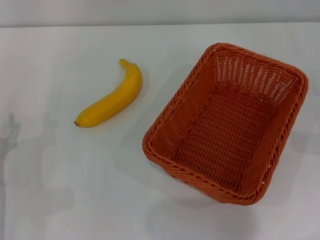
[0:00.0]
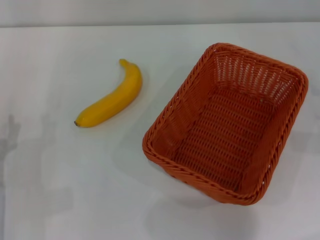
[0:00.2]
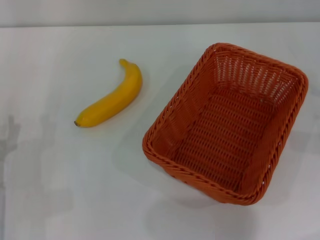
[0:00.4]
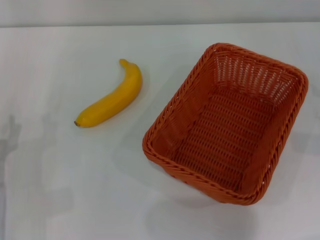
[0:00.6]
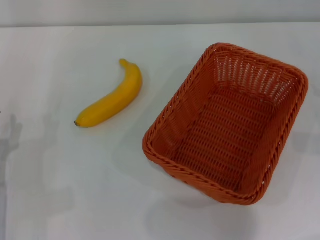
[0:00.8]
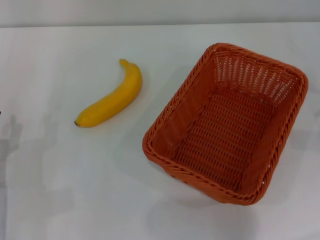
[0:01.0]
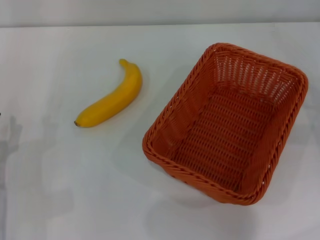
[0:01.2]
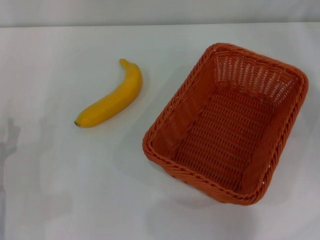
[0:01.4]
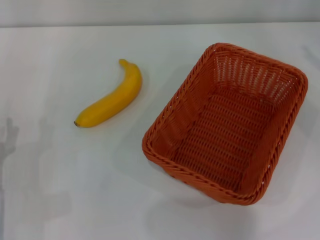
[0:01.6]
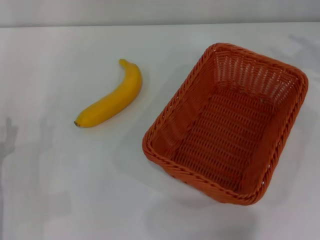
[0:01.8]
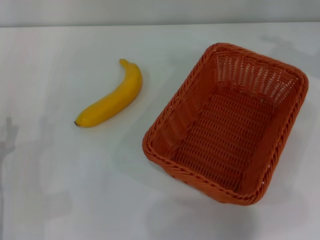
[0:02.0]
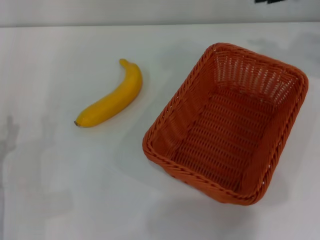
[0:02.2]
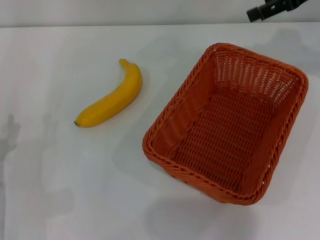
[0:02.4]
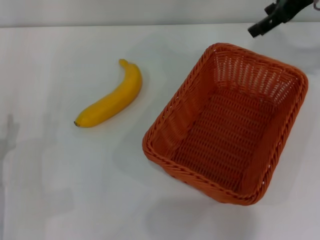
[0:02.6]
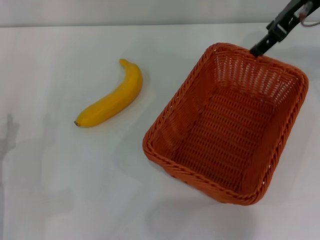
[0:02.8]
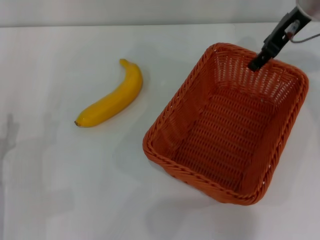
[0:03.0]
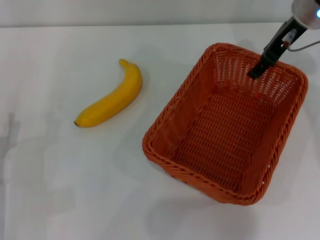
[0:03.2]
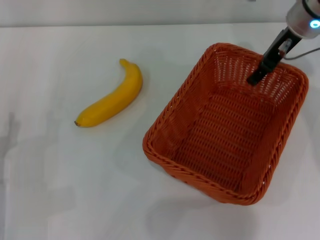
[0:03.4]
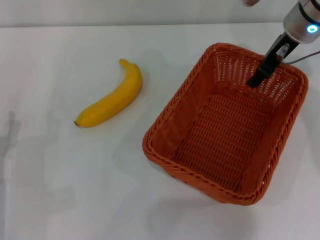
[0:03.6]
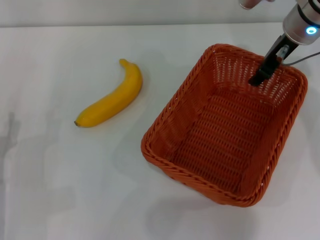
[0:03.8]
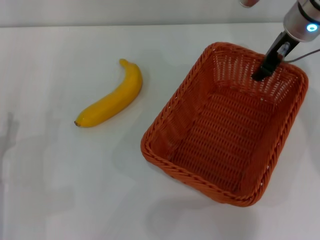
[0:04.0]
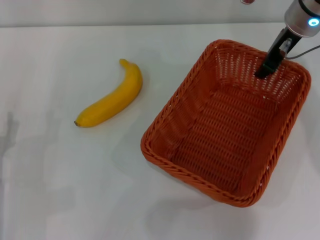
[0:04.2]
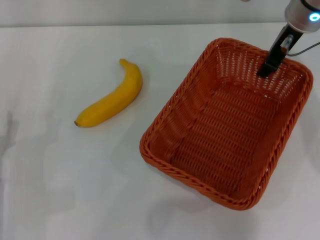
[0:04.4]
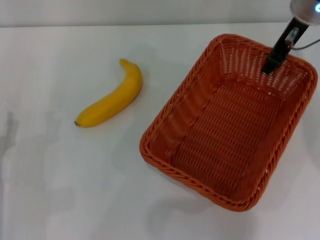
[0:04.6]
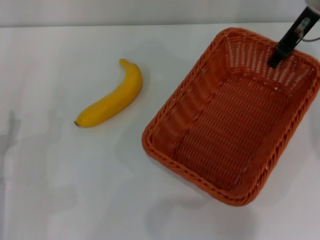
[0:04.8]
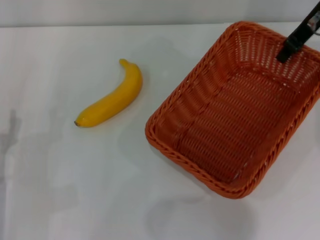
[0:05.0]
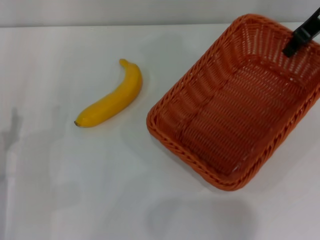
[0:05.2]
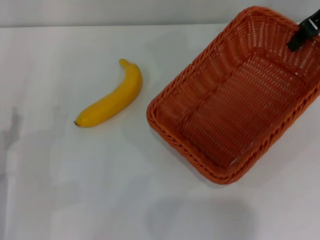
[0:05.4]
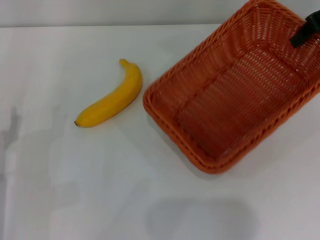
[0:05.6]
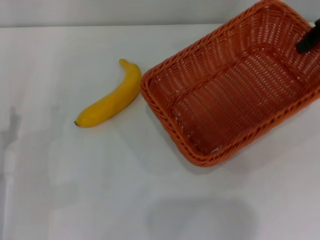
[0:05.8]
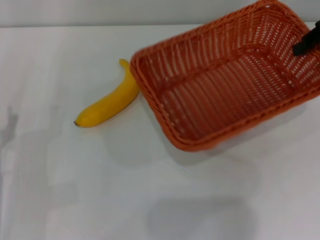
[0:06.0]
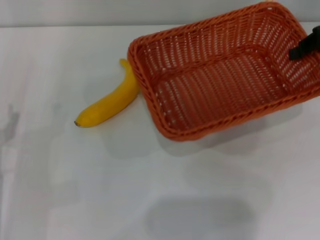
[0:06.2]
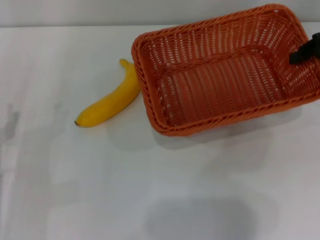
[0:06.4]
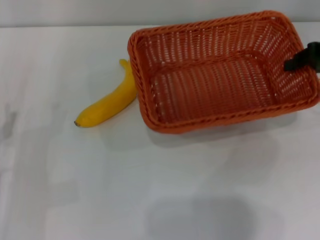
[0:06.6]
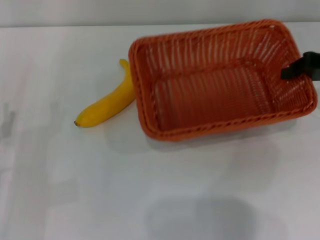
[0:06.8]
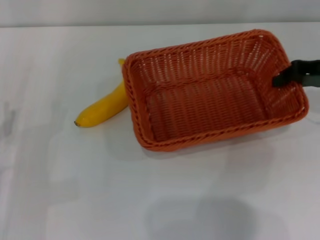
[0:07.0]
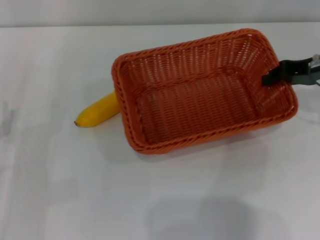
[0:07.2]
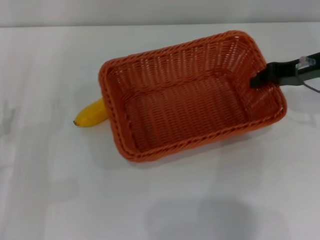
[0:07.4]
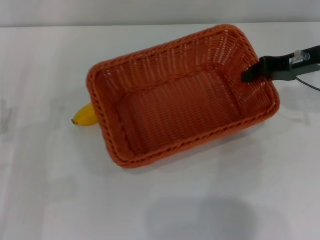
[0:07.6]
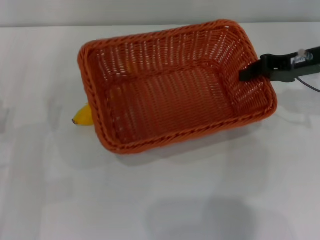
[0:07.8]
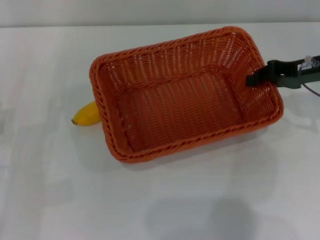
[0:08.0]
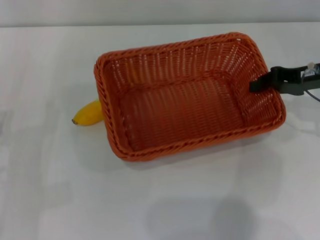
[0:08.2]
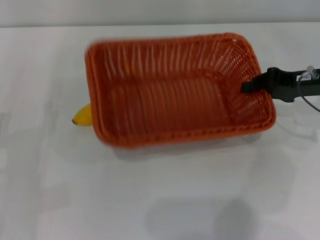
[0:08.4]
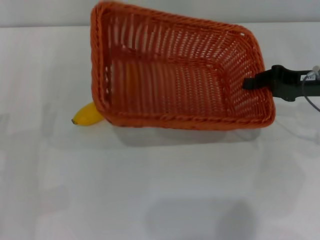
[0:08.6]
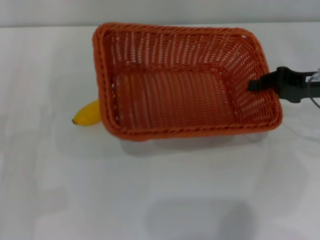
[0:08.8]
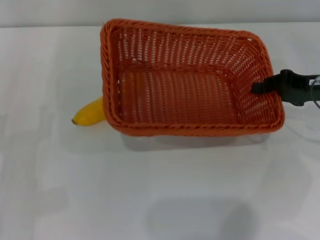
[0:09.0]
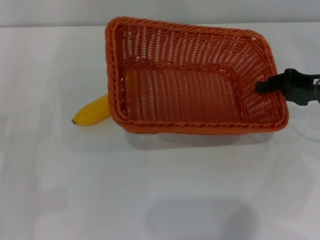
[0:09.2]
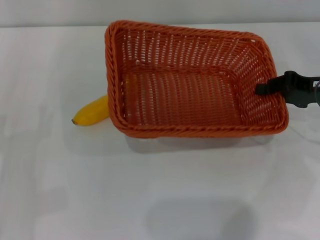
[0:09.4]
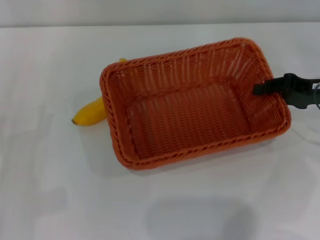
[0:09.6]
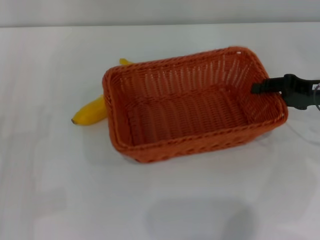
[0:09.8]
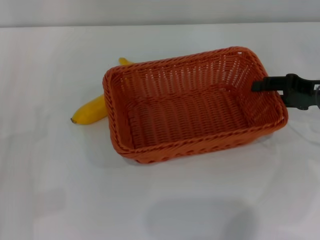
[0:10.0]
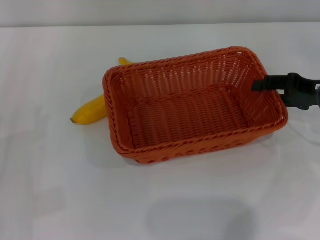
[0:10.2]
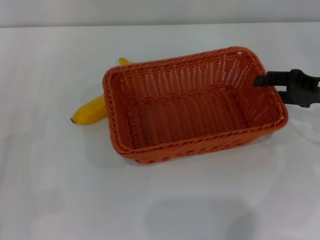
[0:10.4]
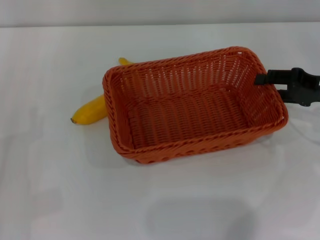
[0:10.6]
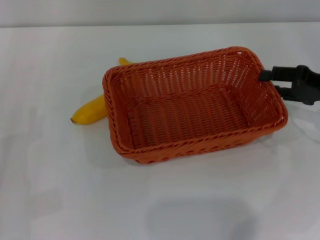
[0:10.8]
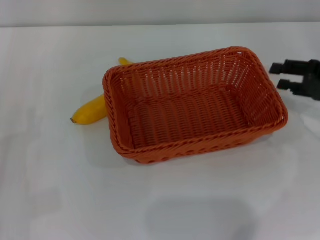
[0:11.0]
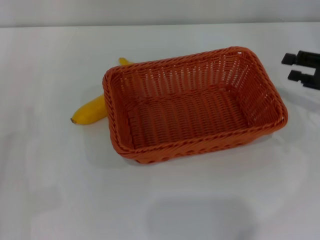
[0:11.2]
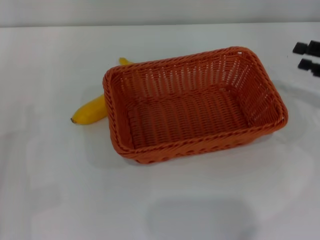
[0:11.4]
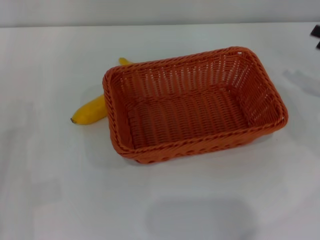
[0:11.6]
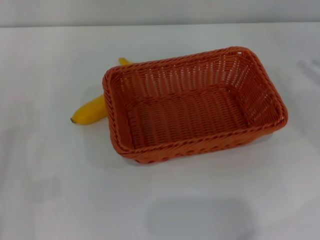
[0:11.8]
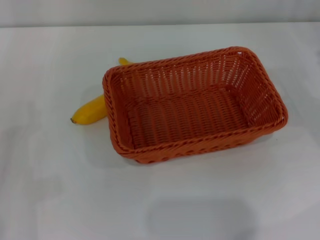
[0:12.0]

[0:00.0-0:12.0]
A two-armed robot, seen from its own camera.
Step, 0:00.0 to 0:04.6: Pick up the light basket with the right gripper.
Step, 0:04.8 to 0:11.0: Place the light basket in the center of view with the right gripper.
0:01.6 to 0:03.0: The right gripper moves to the left, forward and upward, some 25 cm.
0:03.0 to 0:04.4: The right gripper closes.
0:04.4 to 0:06.0: The right gripper moves to the right, some 15 cm.
0:06.0 to 0:07.6: The right gripper goes some 10 cm downward and to the left.
0:07.6 to 0:09.0: The right gripper ends up some 5 cm from where it was.
0:09.0 to 0:10.4: The right gripper opens its fingers.
0:10.4 to 0:12.0: The right gripper goes approximately 10 cm to the right.

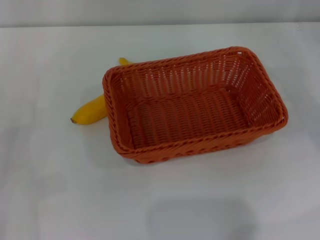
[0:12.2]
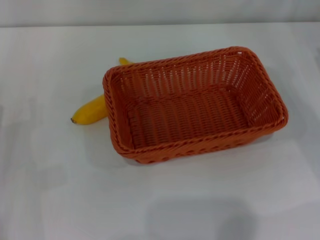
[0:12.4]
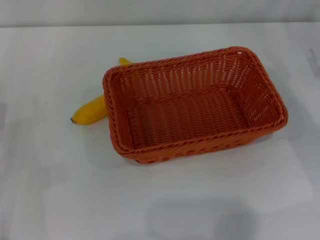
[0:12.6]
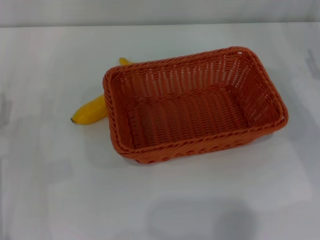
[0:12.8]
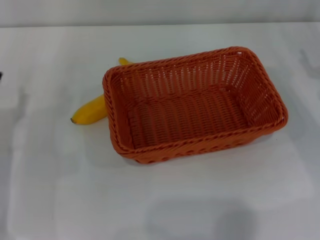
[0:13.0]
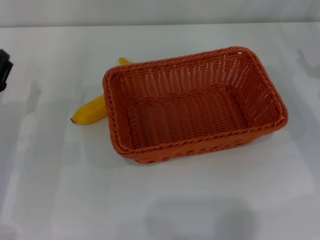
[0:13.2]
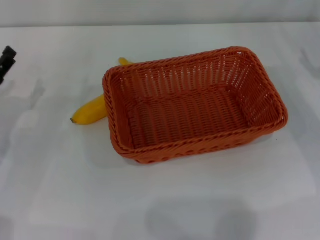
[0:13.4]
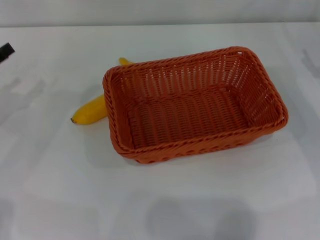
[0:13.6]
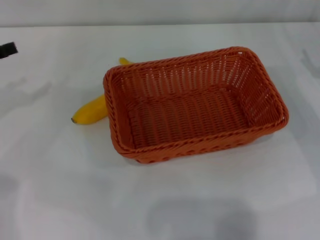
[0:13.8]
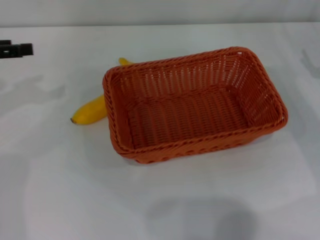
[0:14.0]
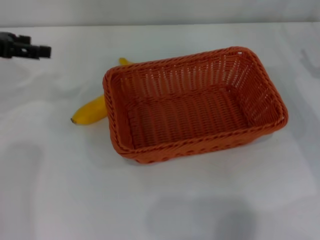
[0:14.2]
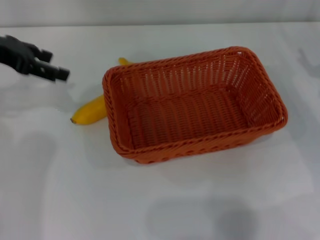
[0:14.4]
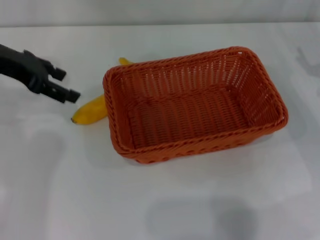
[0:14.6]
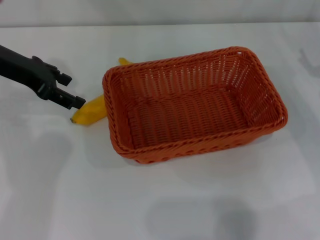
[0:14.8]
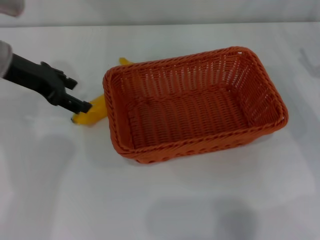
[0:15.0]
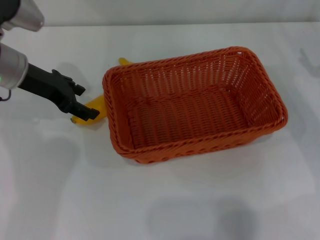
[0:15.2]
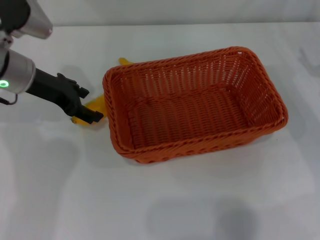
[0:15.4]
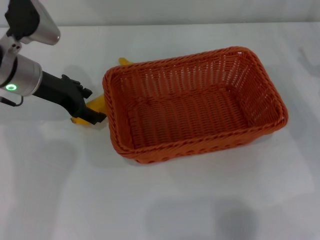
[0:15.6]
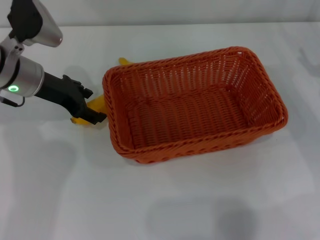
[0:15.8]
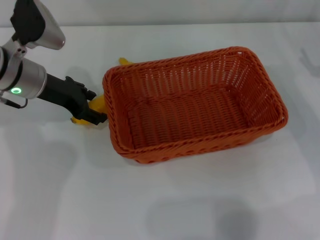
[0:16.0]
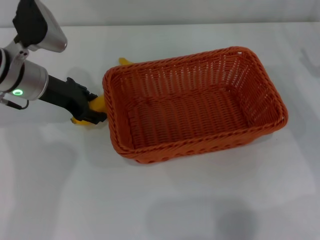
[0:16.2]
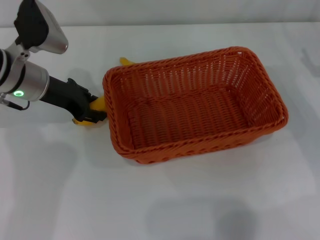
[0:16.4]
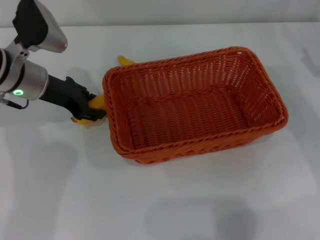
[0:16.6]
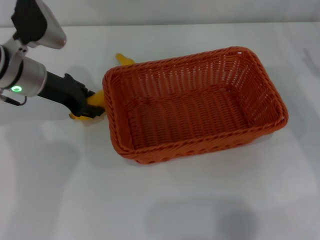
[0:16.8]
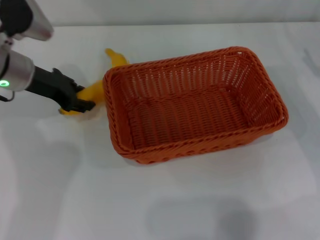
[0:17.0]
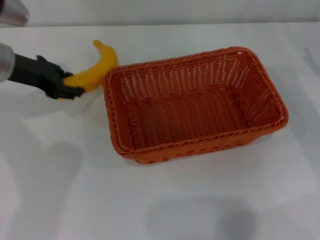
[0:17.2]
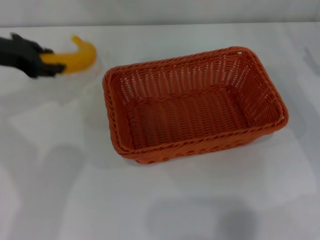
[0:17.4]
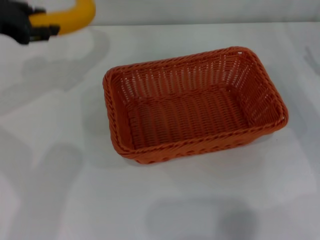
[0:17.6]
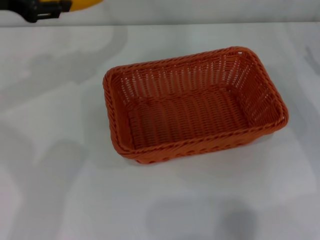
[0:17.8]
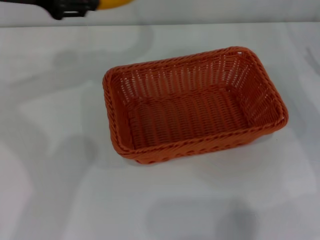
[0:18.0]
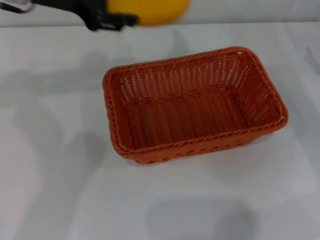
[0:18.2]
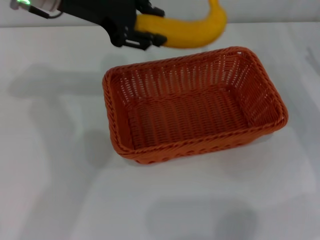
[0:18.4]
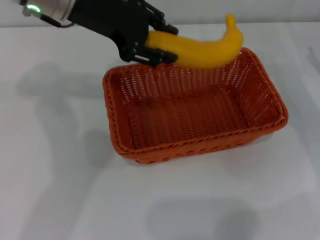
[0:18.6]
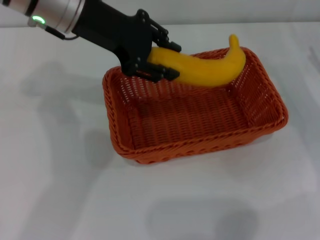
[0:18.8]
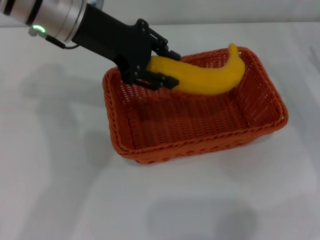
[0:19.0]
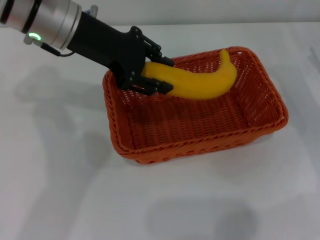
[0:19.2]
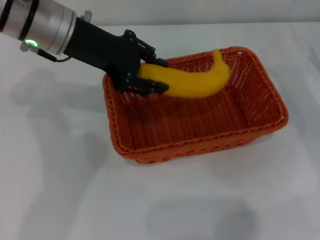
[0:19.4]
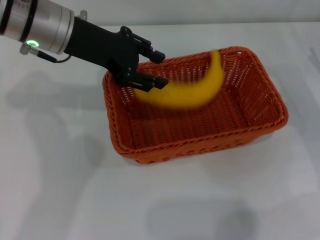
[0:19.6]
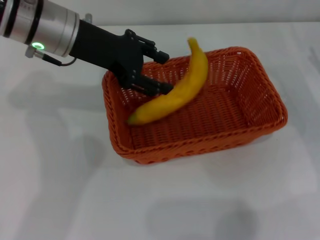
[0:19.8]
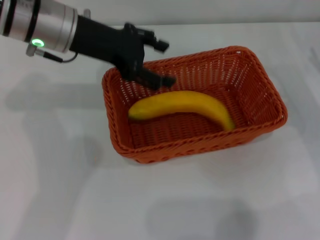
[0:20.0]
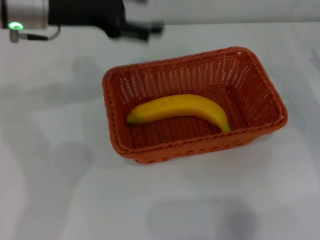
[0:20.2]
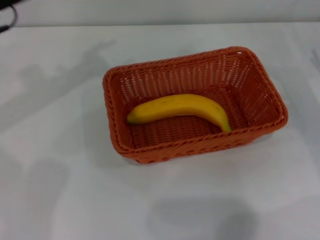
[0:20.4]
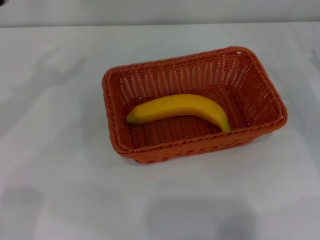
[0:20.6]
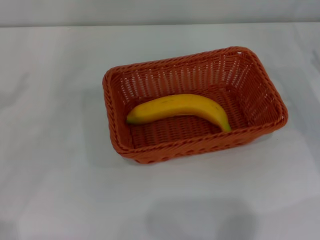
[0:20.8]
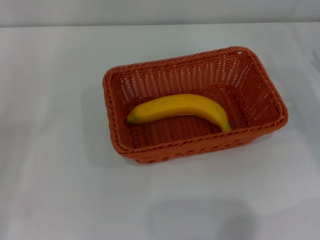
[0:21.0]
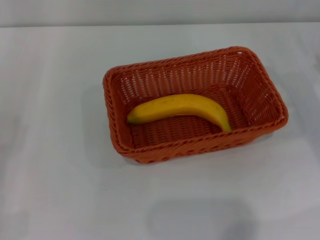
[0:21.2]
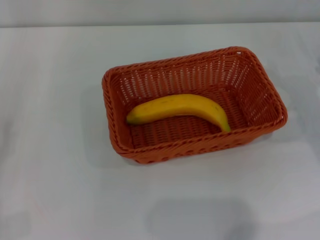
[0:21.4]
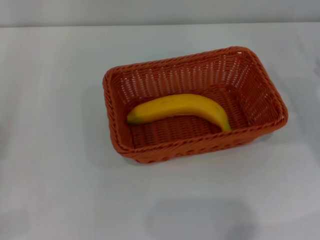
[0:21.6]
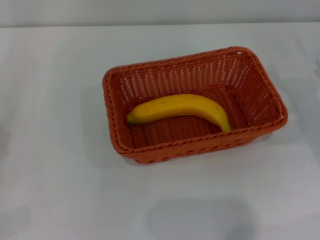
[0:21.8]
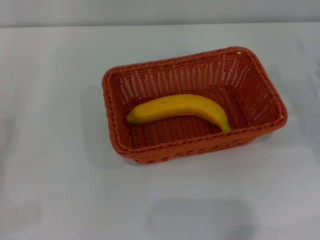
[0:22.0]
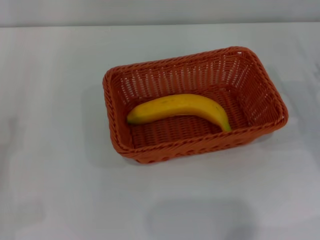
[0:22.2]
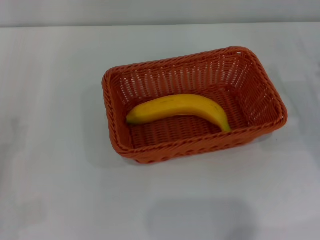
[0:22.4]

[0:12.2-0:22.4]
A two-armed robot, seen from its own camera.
Step, 0:12.2 to 0:17.0: Pick up the banana with the left gripper.
Step, 0:17.2 to 0:19.6: Place the banana into the light basket with the left gripper.
0:13.6 to 0:15.2: The left gripper shifts some 15 cm to the right, forward and upward.
0:15.2 to 0:16.6: The left gripper closes its fingers.
0:16.6 to 0:18.0: The left gripper goes approximately 15 cm upward.
0:18.0 to 0:19.4: The left gripper moves to the right, about 10 cm.
0:19.4 to 0:21.0: The left gripper shifts some 35 cm to the left, backward and downward, and opens its fingers.
